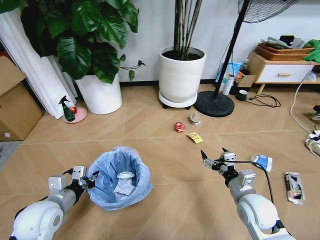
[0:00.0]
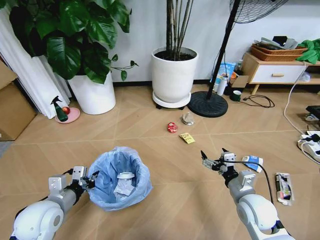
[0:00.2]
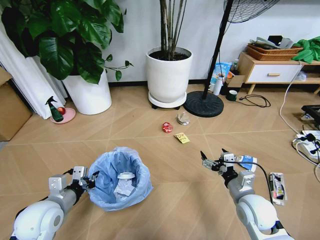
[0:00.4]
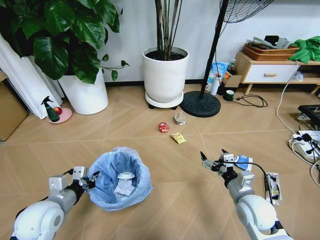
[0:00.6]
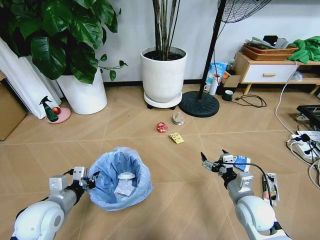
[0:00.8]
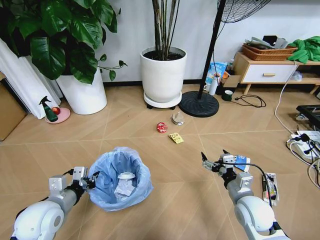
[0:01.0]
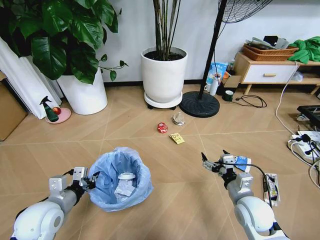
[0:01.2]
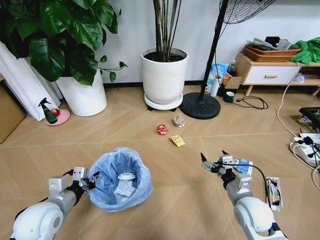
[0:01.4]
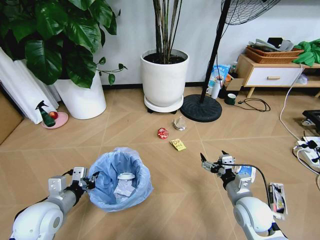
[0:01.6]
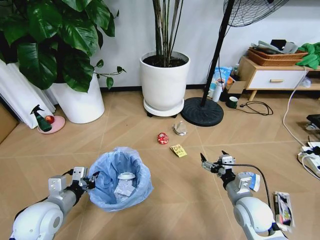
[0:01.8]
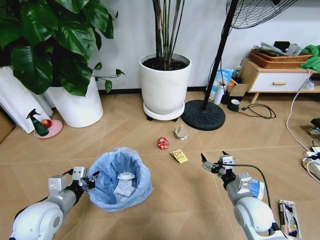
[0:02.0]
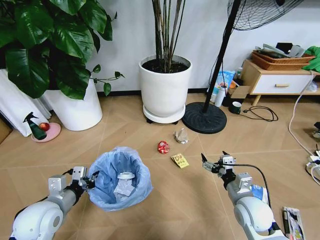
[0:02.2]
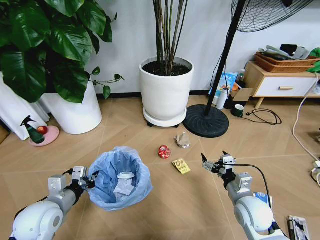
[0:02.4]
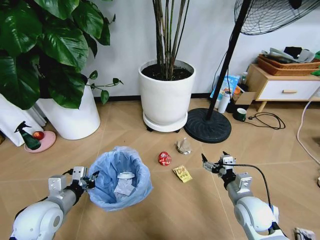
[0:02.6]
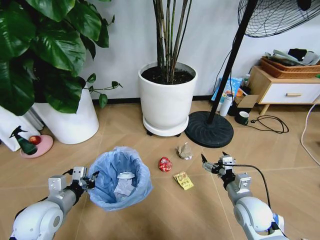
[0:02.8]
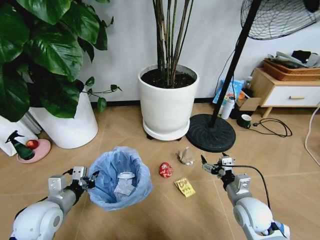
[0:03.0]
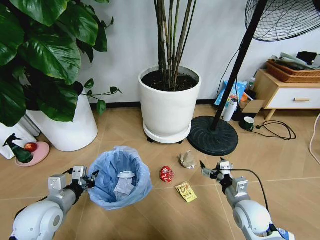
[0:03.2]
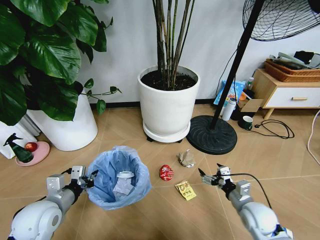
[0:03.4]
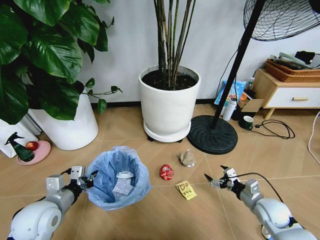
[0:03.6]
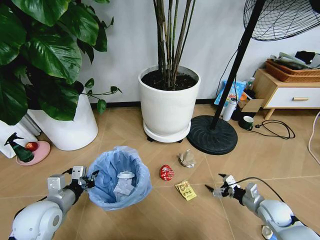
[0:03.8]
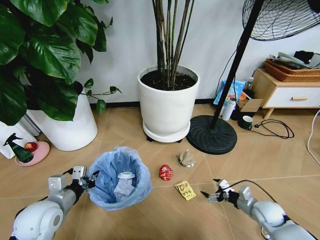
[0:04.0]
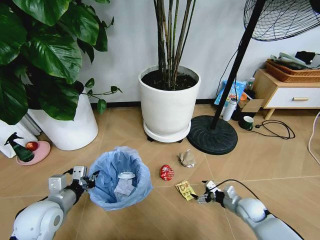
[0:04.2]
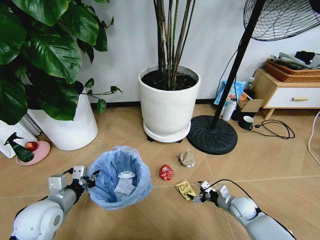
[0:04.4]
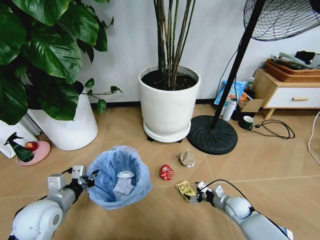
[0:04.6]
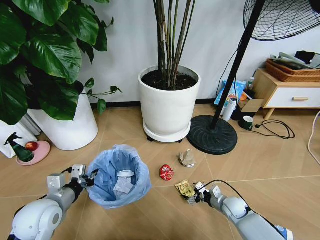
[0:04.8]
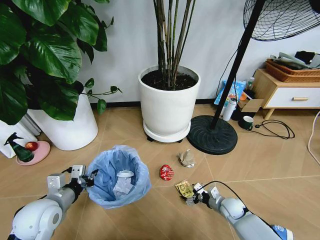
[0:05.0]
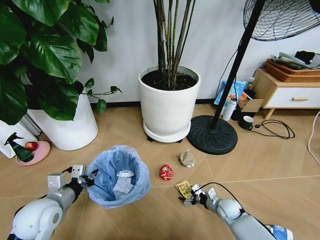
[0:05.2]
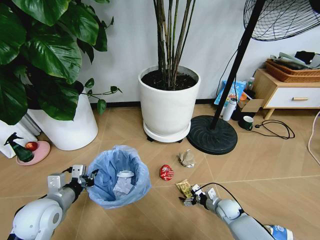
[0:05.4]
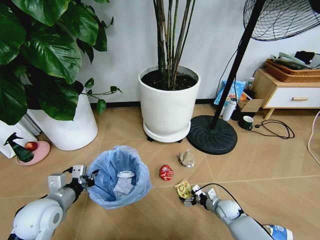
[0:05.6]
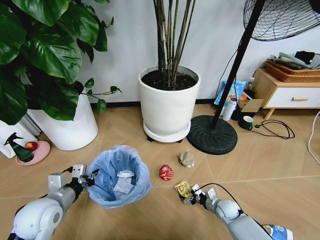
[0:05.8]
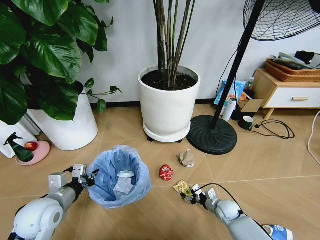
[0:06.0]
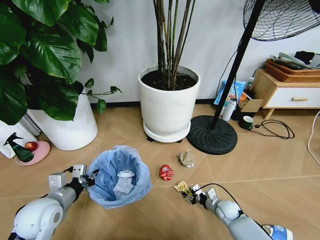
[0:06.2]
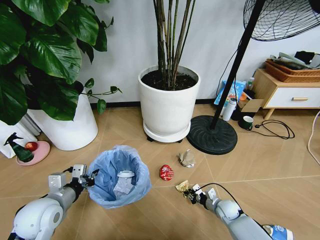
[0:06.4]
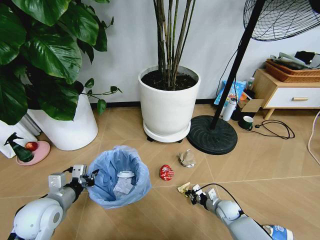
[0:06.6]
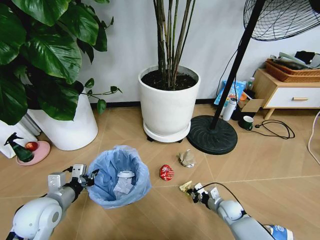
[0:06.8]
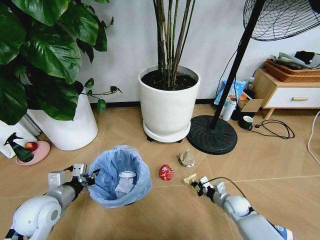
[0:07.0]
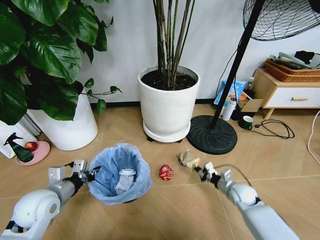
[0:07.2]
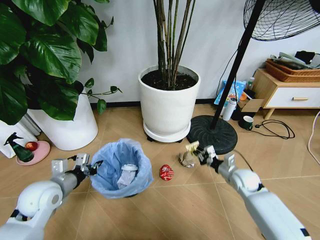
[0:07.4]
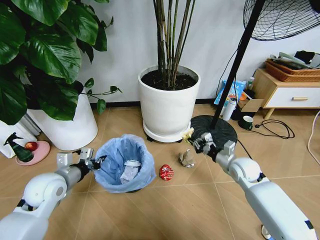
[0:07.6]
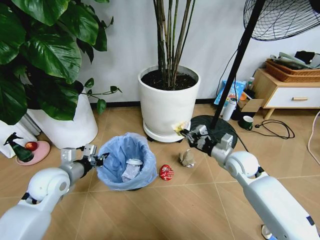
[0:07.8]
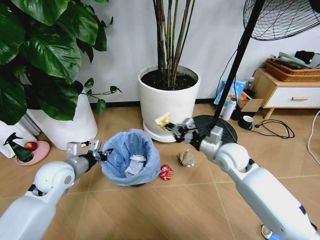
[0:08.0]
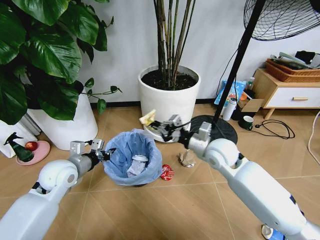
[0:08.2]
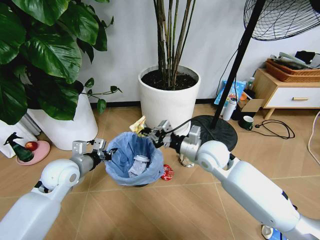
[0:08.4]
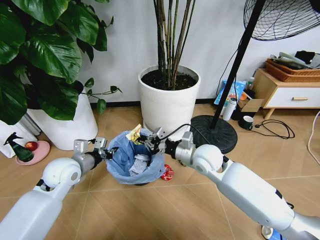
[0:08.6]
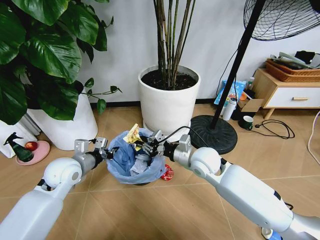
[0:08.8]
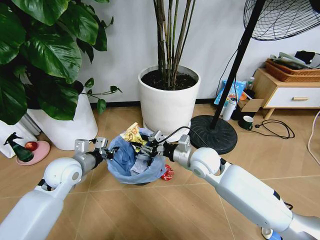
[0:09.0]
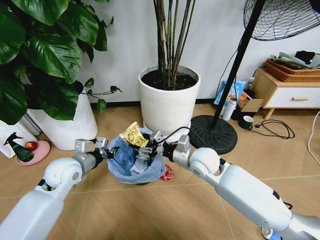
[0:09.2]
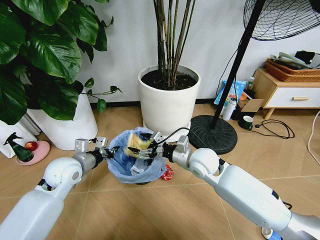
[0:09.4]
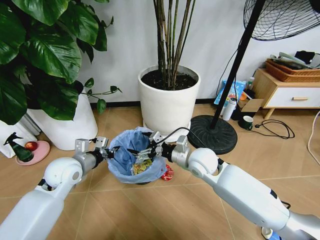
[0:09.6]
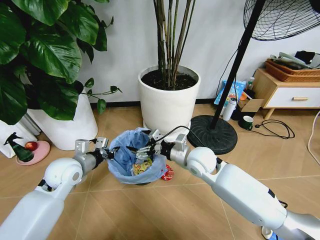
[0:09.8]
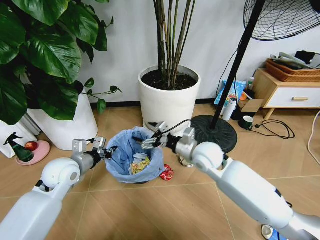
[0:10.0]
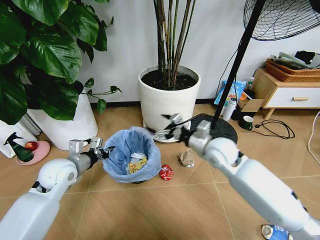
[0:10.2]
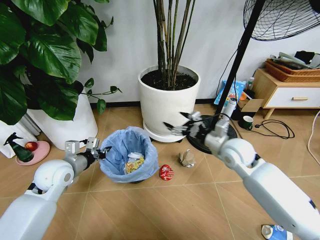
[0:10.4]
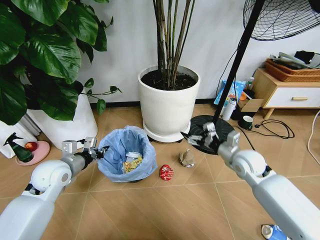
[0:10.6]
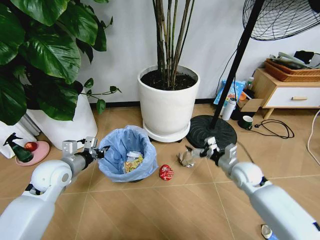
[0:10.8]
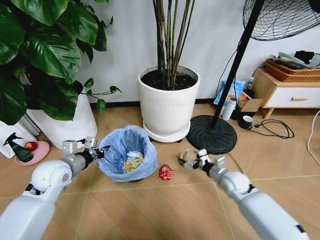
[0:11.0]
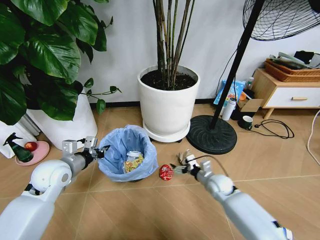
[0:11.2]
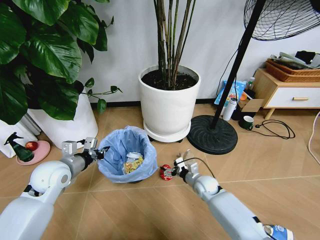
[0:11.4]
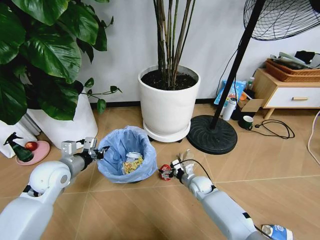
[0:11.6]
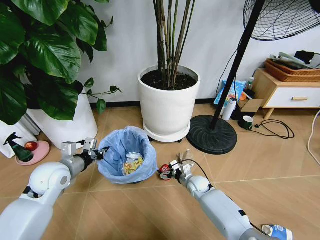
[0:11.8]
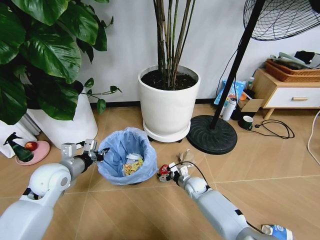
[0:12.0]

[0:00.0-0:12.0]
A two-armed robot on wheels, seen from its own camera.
Task of the whole recording: Pick up the trash bin and place the garbage on the floor into it.
0:03.0 to 0:04.4: The right gripper shifts roughly 15 cm downward and to the right.
0:04.4 to 0:06.0: The right gripper is displaced downward and to the left by approximately 10 cm, and closes up.
0:06.0 to 0:07.6: The right gripper is displaced upward by approximately 20 cm, and closes. Meanwhile the left gripper goes roughly 5 cm forward.
0:07.6 to 0:09.0: The left gripper changes place by approximately 5 cm; the right gripper is displaced to the left and upward by approximately 20 cm, and opens its fingers.
0:09.0 to 0:10.4: The right gripper travels to the right by approximately 10 cm, and opens its fingers.
0:10.4 to 0:12.0: The right gripper moves downward, approximately 30 cm.

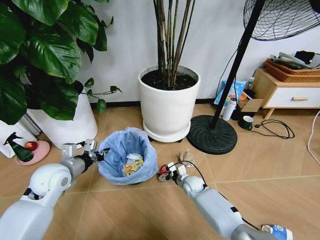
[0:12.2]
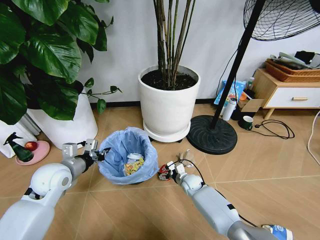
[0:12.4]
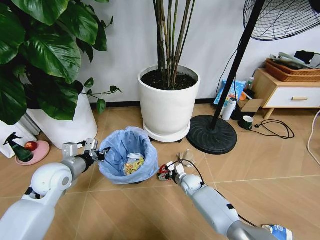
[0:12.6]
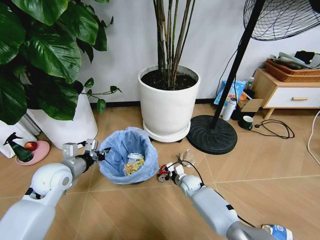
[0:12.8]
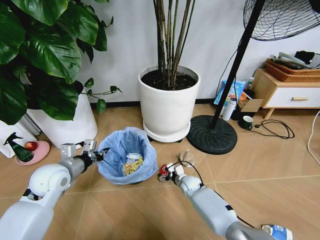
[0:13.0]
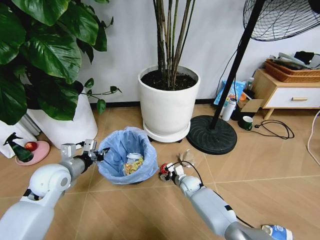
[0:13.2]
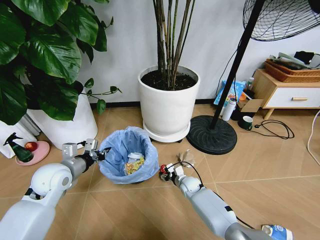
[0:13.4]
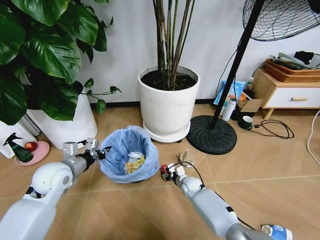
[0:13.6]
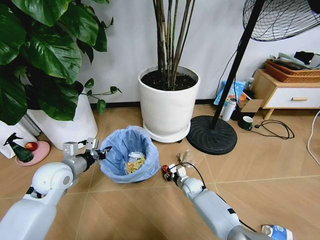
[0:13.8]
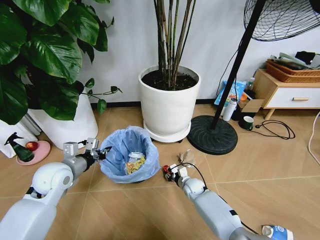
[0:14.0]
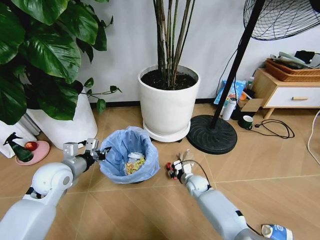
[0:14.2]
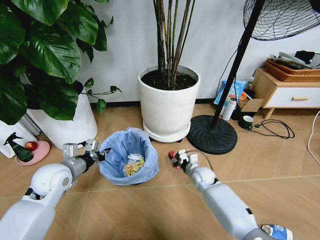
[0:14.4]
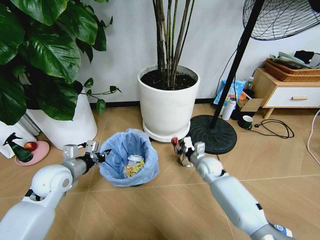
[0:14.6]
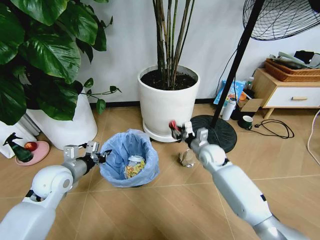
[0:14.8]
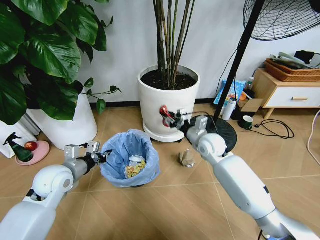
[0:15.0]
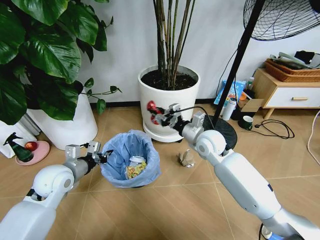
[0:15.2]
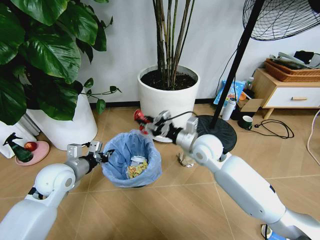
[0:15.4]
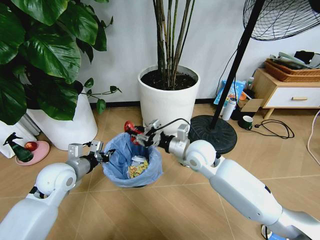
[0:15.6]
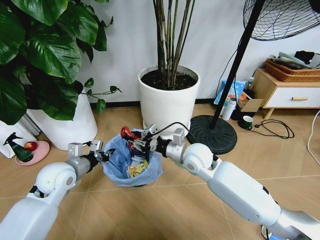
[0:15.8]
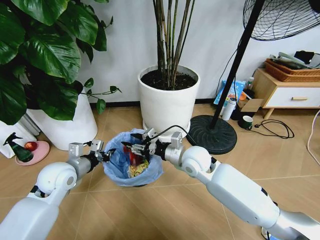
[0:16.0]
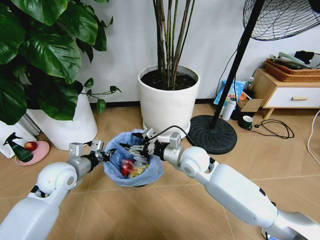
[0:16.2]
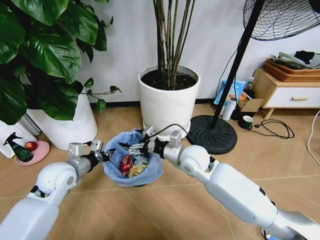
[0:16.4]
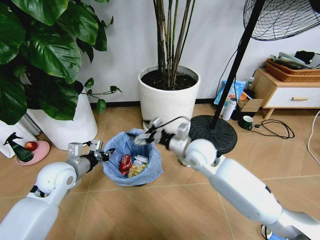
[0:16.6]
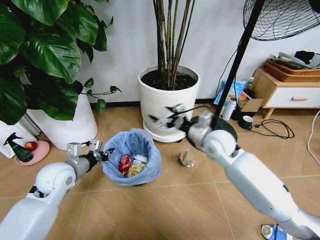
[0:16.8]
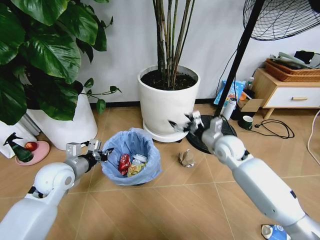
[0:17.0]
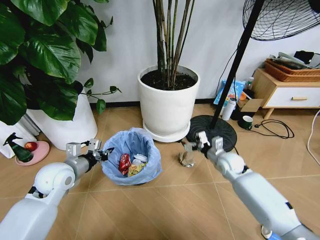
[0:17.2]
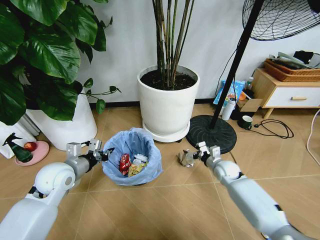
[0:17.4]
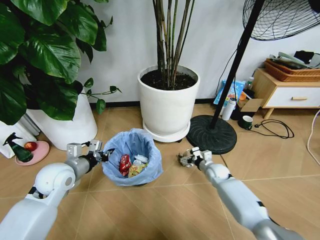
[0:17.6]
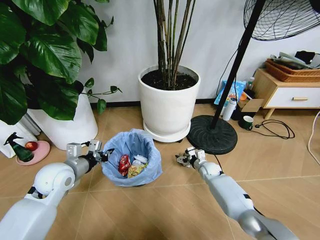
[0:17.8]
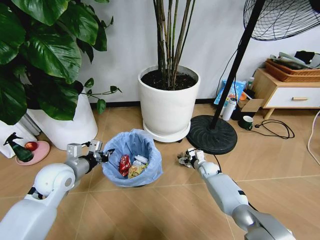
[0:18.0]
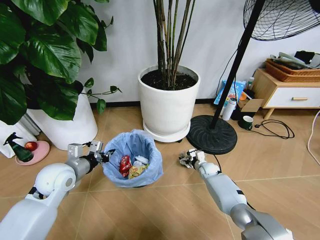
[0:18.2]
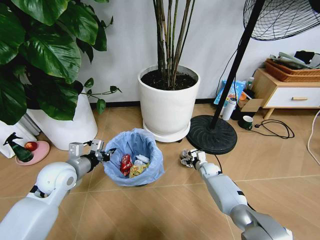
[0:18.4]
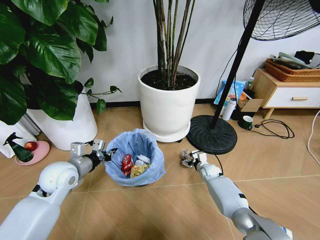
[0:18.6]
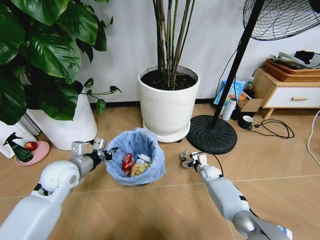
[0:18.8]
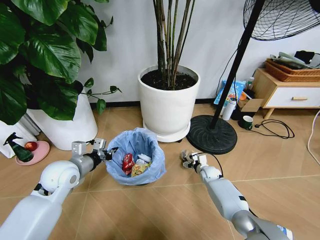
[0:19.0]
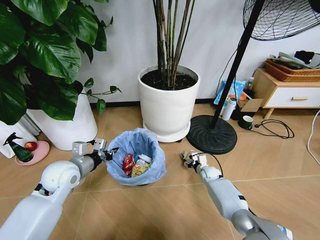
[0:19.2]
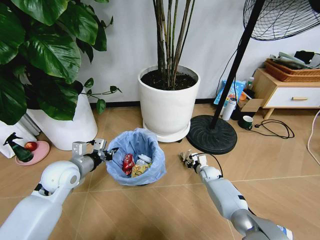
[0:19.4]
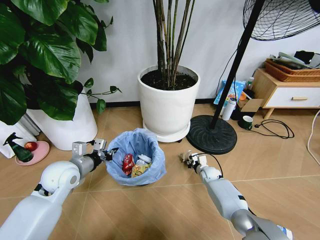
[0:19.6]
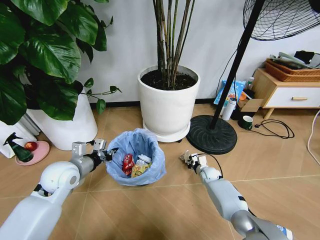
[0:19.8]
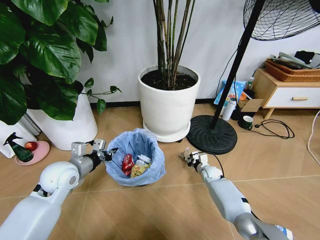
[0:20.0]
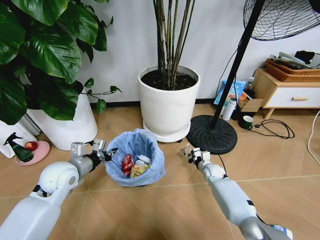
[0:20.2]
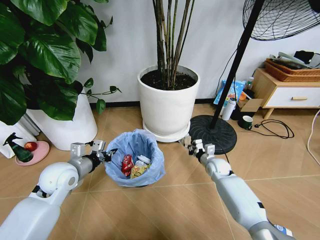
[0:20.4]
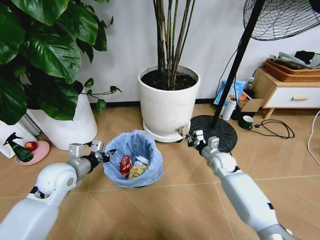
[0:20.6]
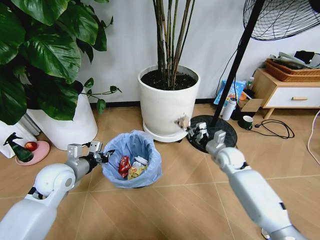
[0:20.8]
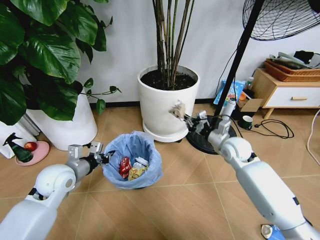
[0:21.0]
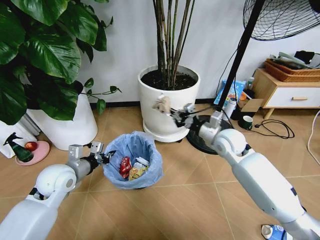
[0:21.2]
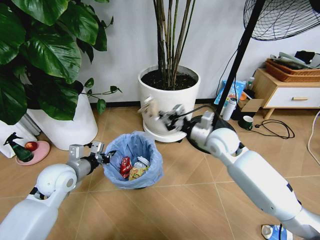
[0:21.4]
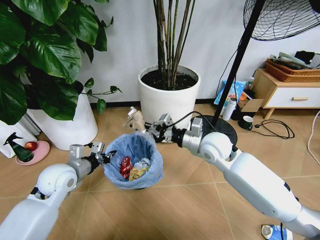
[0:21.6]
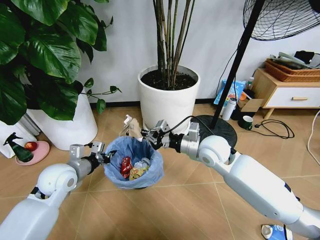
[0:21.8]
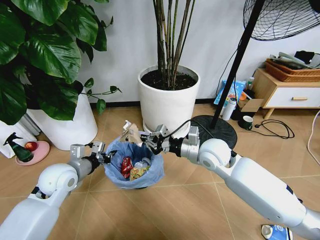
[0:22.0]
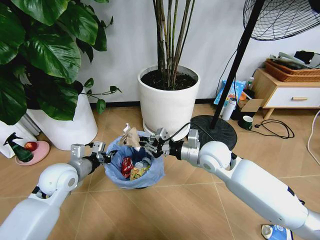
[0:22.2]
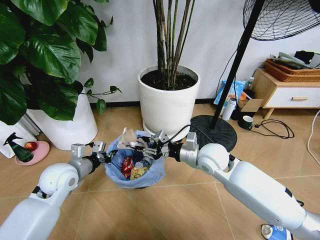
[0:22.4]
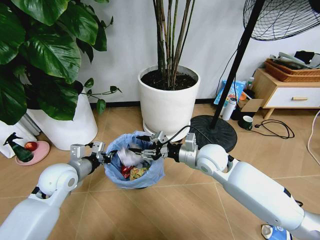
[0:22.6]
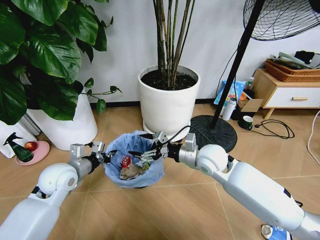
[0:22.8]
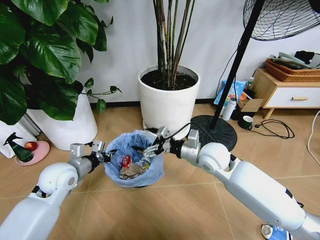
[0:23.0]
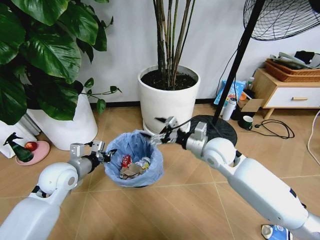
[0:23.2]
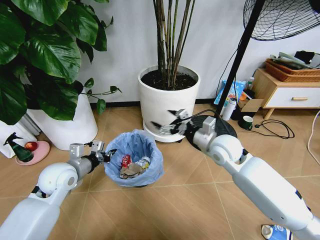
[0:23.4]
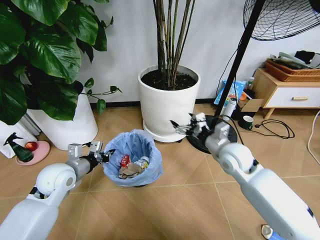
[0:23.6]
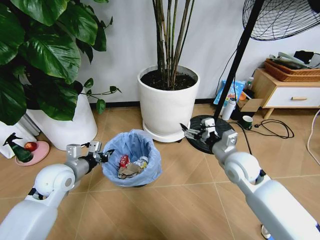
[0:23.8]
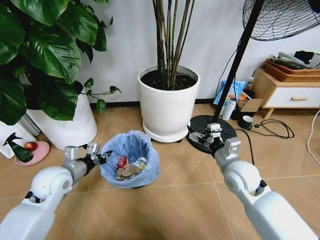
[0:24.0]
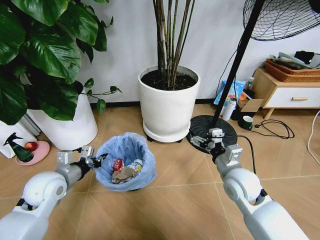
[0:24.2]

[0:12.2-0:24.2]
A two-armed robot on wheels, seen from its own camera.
Task of the whole recording: Pick up the trash bin and place the garbage on the floor into it.
0:12.2 to 0:13.8: The right gripper closes up.
0:13.8 to 0:15.2: The right gripper travels upward by about 30 cm.
0:15.2 to 0:16.6: The right gripper opens its fingers.
0:16.6 to 0:18.2: The right gripper moves downward, some 30 cm.
0:18.2 to 0:19.8: The right gripper closes up.
0:19.8 to 0:21.2: The right gripper heads upward, covering roughly 30 cm.
0:21.2 to 0:22.6: The right gripper heads to the left and backward, covering about 10 cm, and opens.
0:22.6 to 0:24.2: The right gripper goes about 10 cm to the right and backward, and opens.
